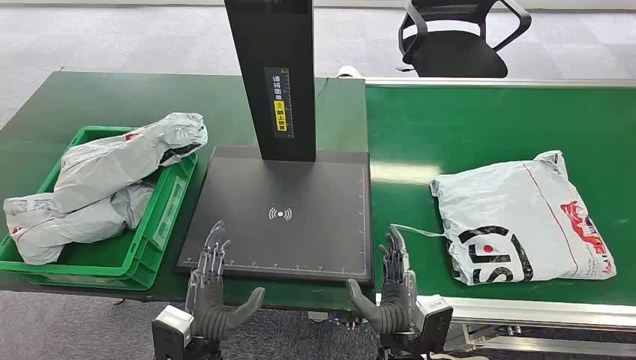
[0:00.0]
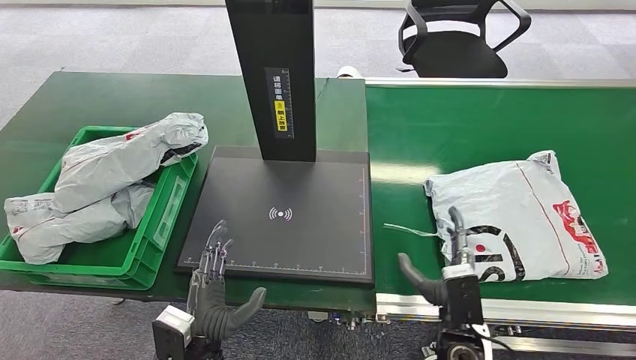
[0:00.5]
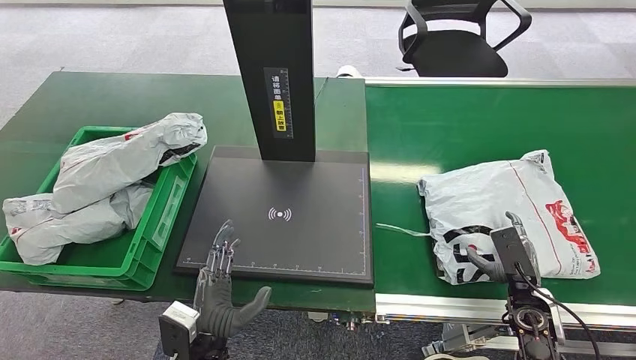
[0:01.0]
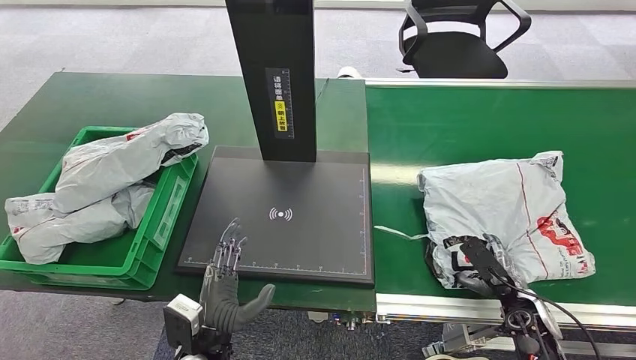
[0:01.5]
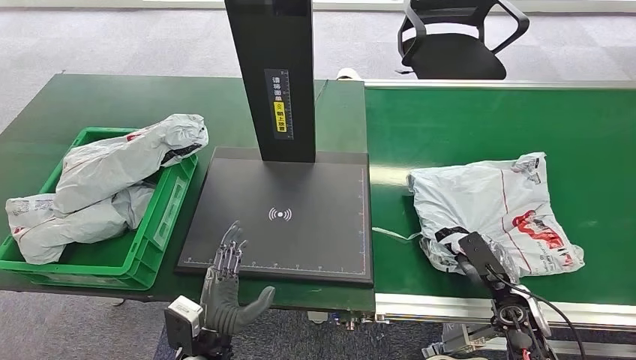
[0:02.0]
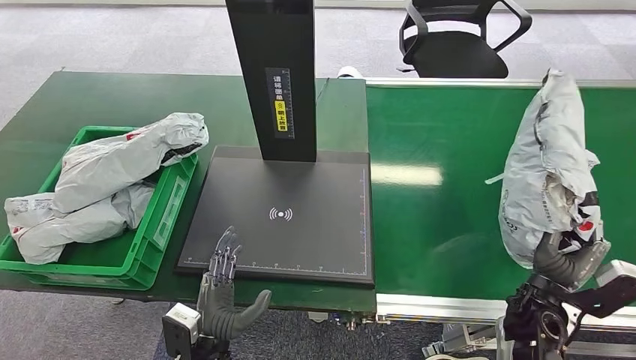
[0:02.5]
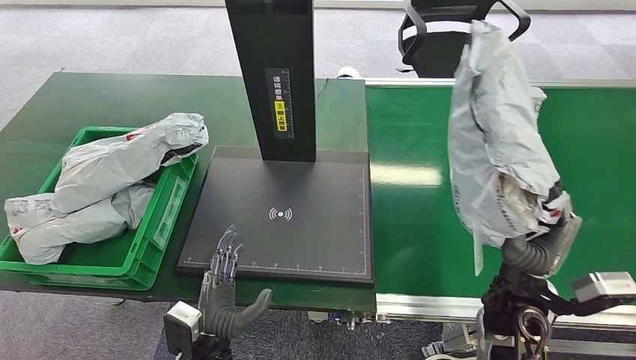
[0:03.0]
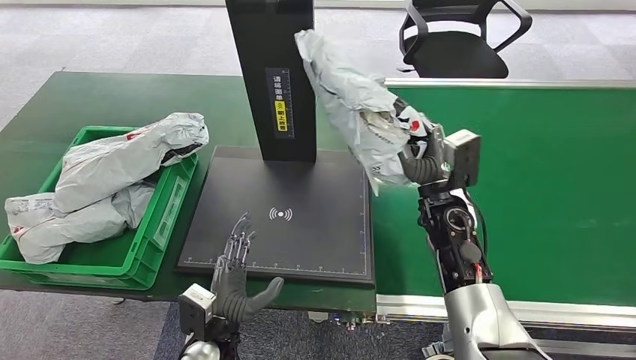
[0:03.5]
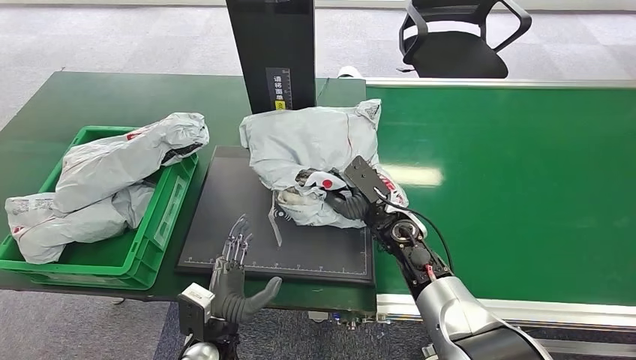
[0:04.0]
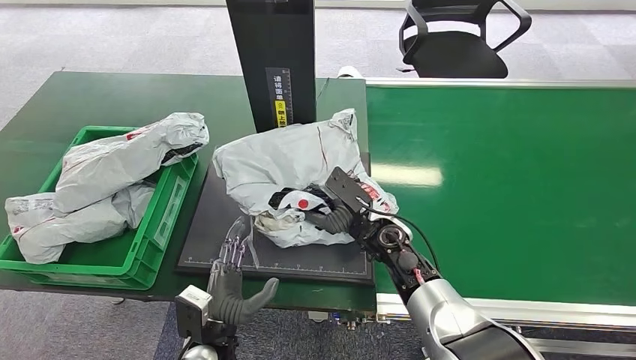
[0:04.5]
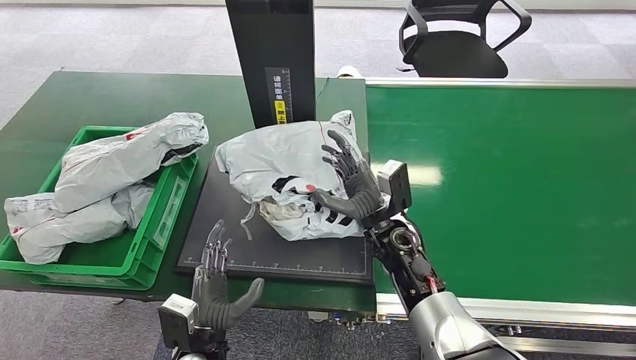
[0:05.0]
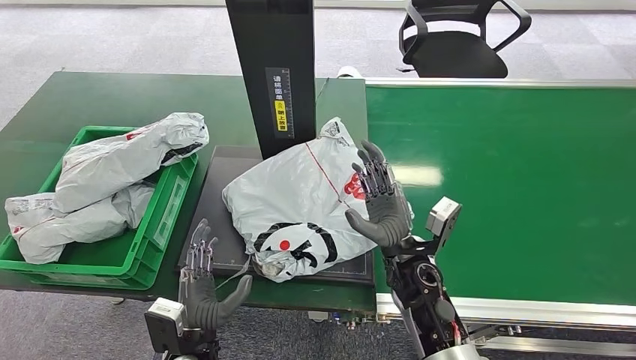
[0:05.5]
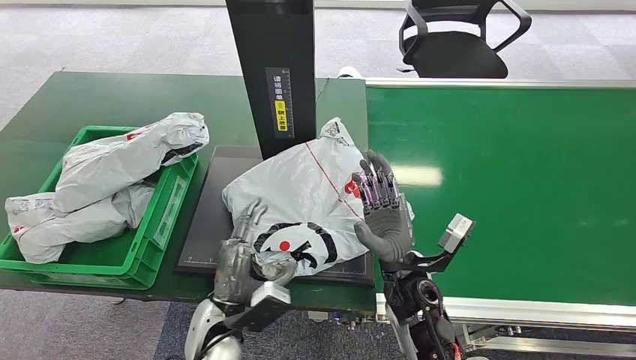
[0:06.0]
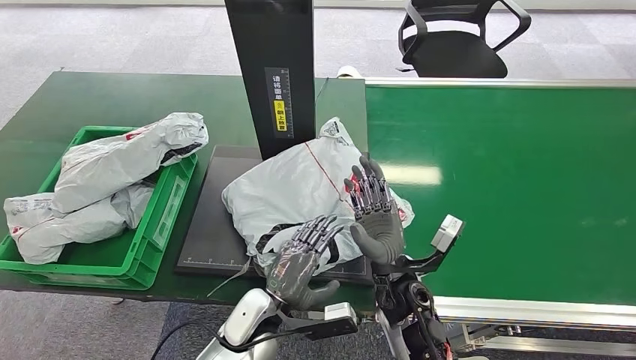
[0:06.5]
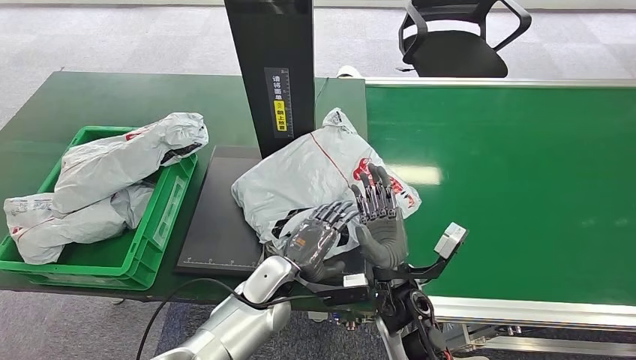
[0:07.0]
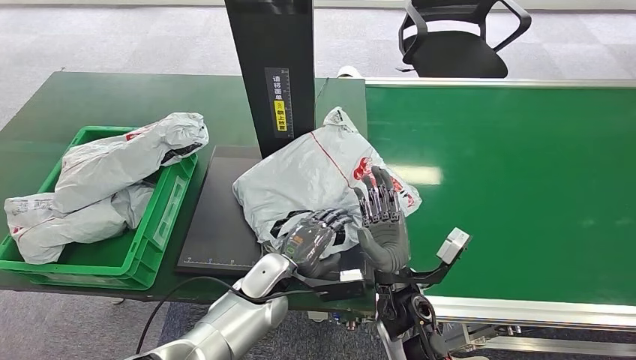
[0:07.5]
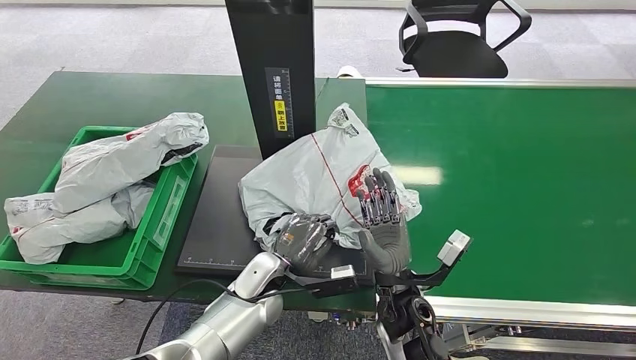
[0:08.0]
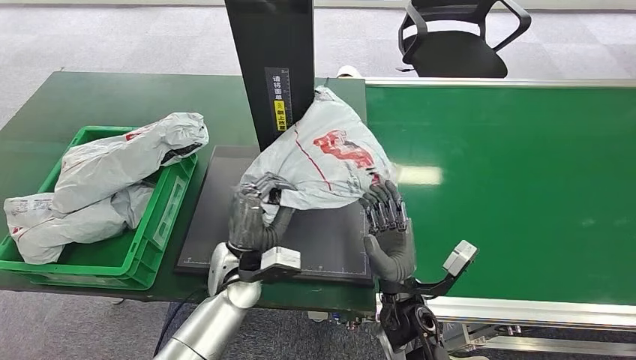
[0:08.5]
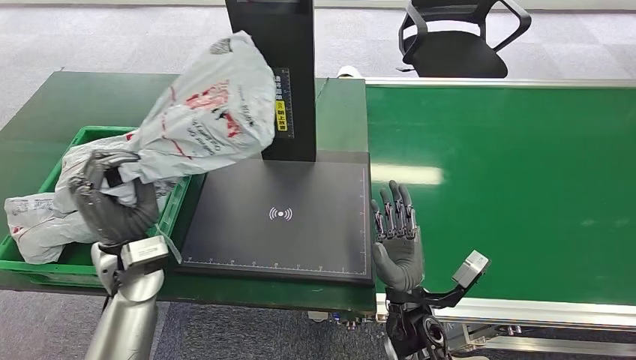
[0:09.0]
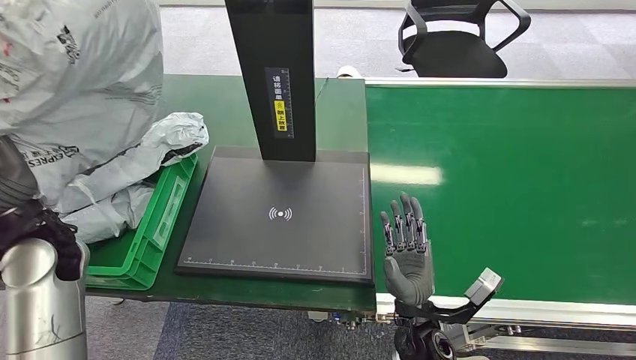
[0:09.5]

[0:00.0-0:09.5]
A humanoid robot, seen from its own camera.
Step, 0:00.0 to 0:02.5: Pick up the package from the conveyor belt.
Step, 0:03.0 to 0:05.5: Place the package onto the inbound machine.
Step, 0:06.0 to 0:09.0: Pick up the package from the inbound machine.
0:04.0 to 0:05.5: The right hand is displaced backward by about 5 cm.
0:05.5 to 0:07.5: The right hand ends up some 5 cm from where it was. Meanwhile the left hand moves forward and to the right, roughly 15 cm.

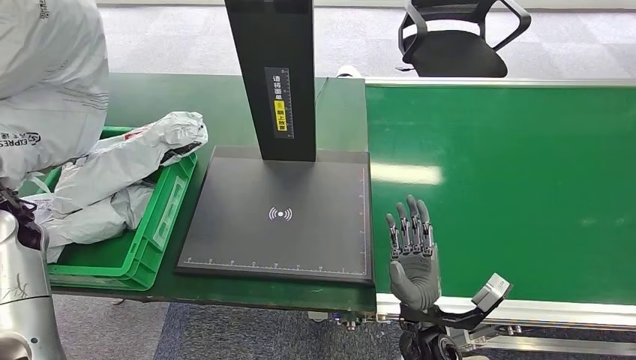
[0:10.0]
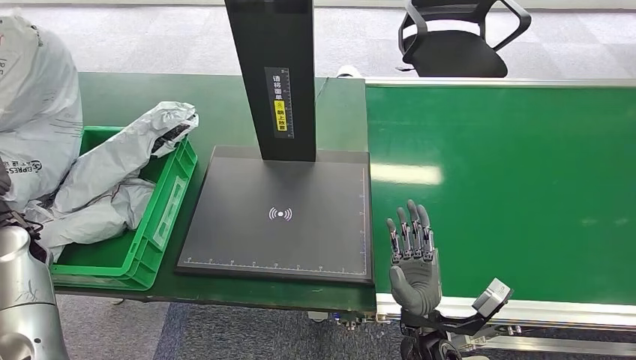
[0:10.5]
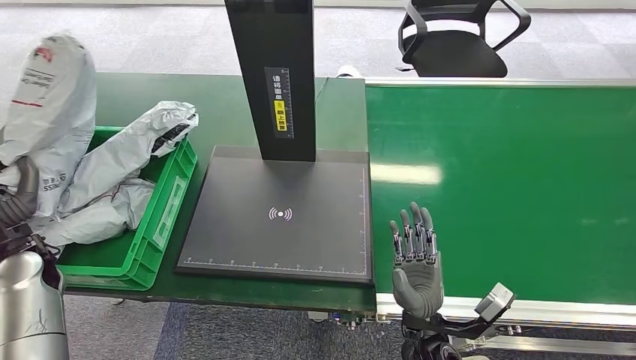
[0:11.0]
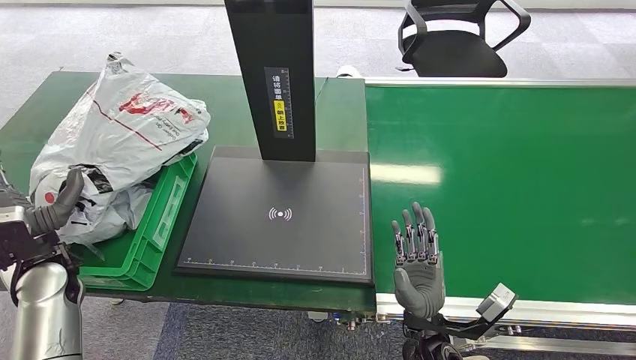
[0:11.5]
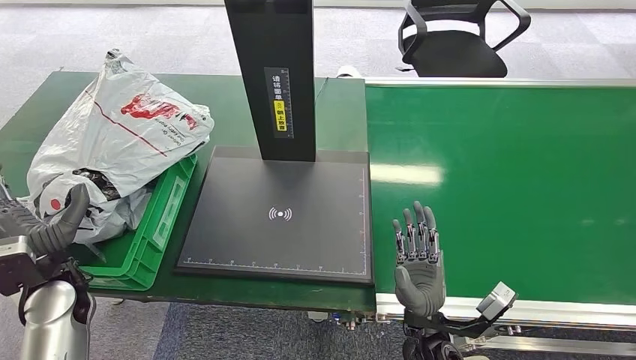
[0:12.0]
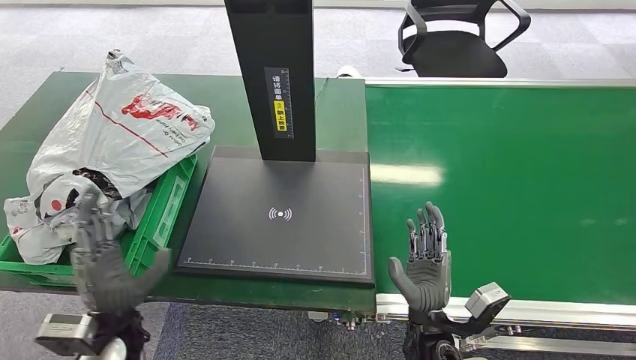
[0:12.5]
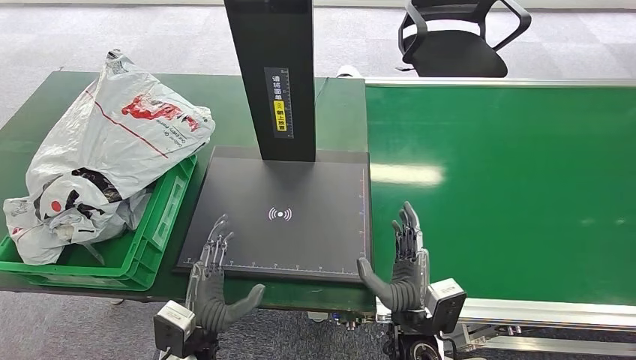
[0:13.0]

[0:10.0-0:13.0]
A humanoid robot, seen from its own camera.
Step, 0:10.0 to 0:13.0: Place the package into the parcel locker.
0:10.0 to 0:11.5: The left hand heads downward and to the right, covering some 10 cm.
0:11.5 to 0:13.0: The left hand heads to the right, downward and backward, covering approximately 30 cm.
